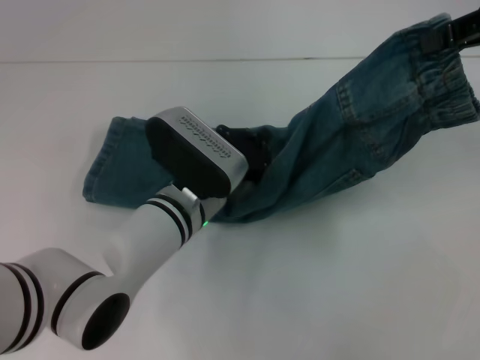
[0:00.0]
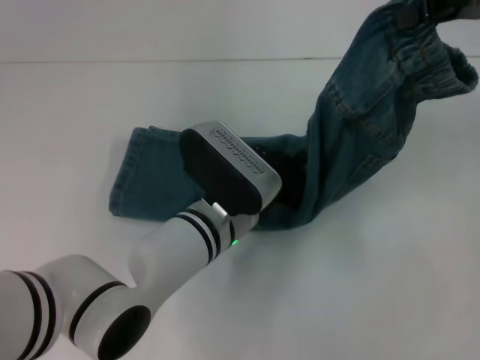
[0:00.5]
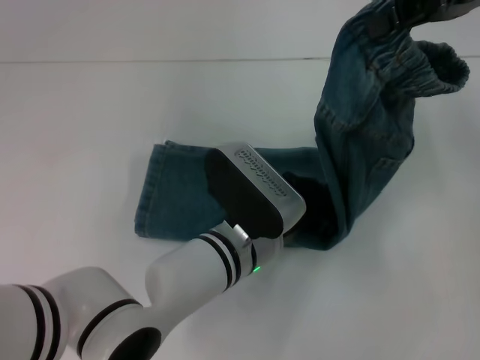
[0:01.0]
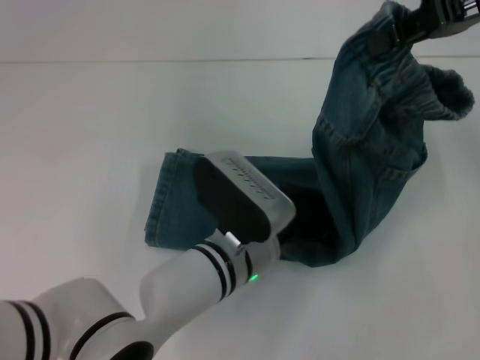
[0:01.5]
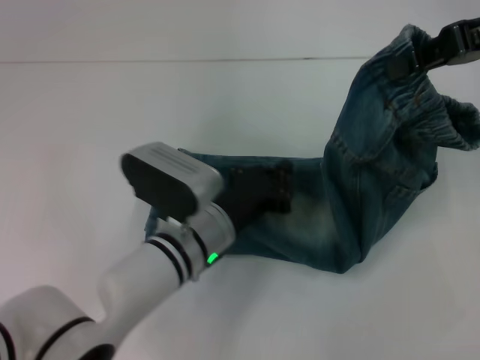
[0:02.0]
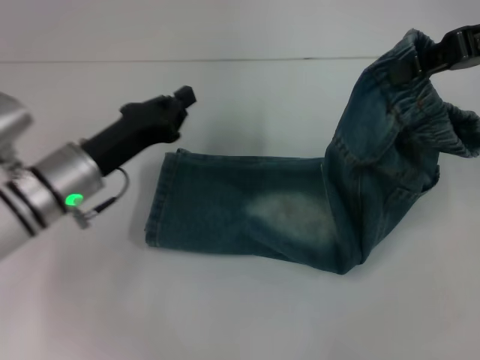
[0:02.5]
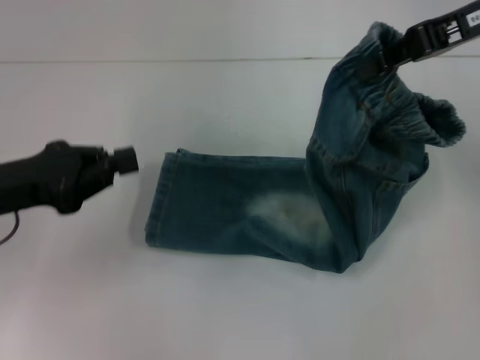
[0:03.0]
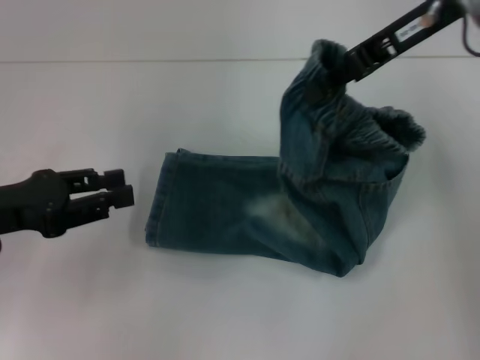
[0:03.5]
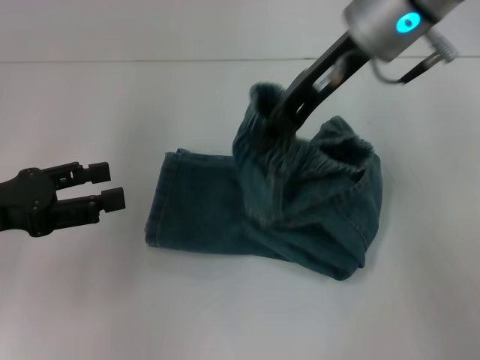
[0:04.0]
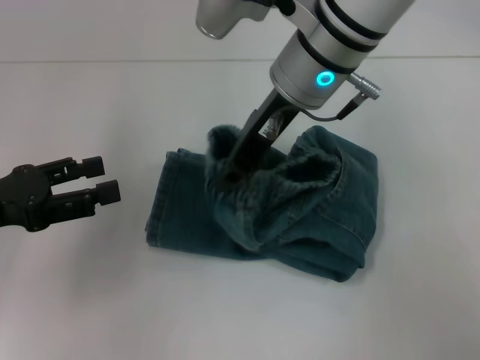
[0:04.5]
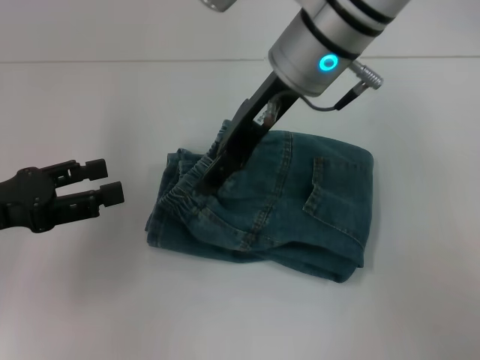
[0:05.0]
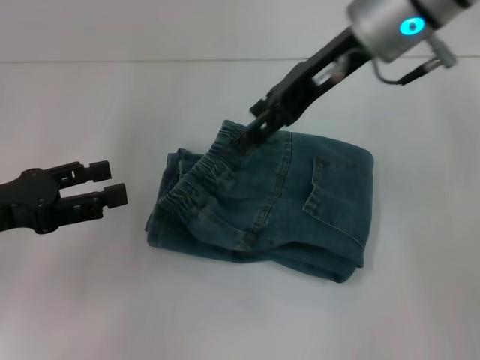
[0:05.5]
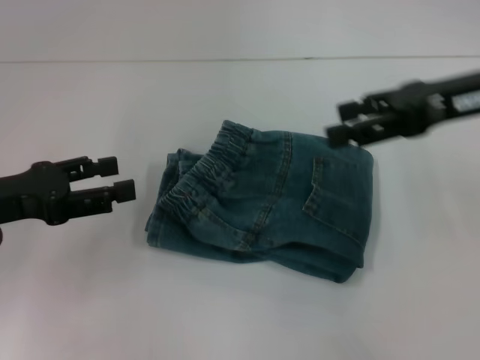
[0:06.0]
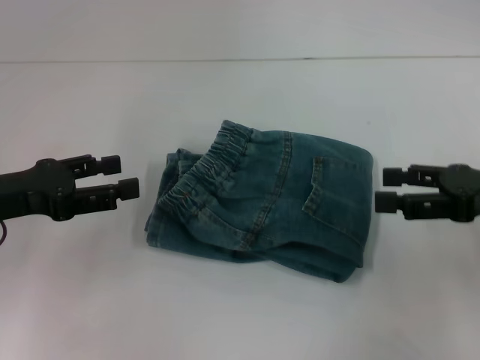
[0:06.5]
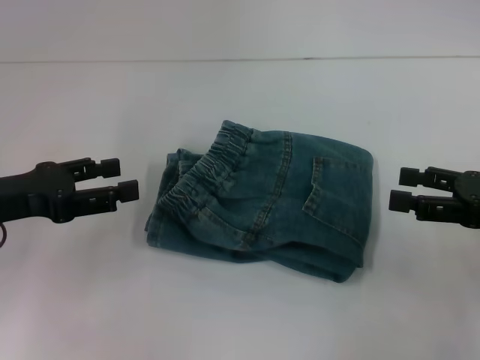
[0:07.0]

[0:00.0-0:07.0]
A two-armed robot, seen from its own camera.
Step, 0:02.0 to 0:05.0: Fold to the left with your right hand.
0:02.0 to 0:03.5: The left gripper goes roughly 25 cm to the left and upward. Meanwhile the right gripper goes about 10 cm to the left.
0:03.5 to 0:05.0: The right gripper shifts approximately 15 cm to the left, and opens. Meanwhile the left gripper opens its fingers.
0:05.0 to 0:07.0: The right gripper shifts approximately 30 cm to the right, backward and downward, and opens.

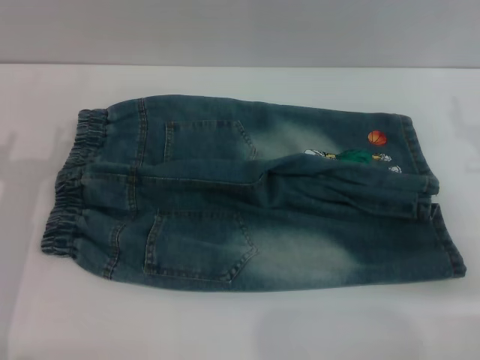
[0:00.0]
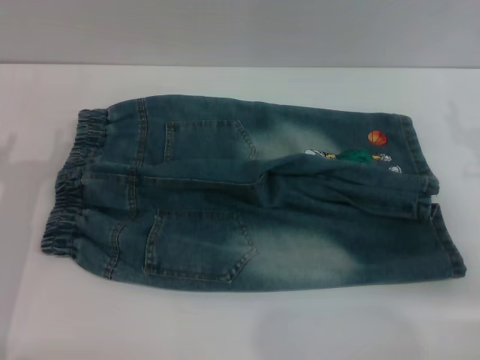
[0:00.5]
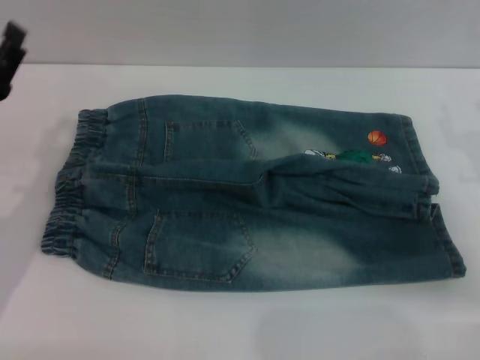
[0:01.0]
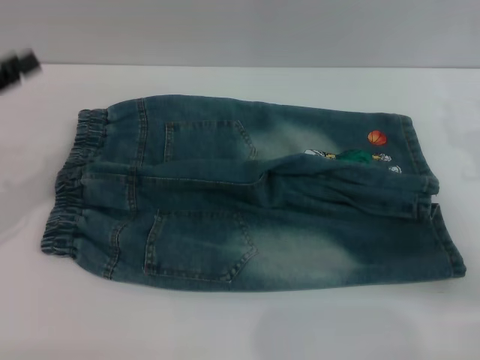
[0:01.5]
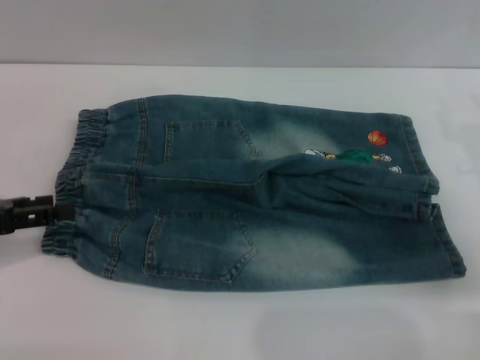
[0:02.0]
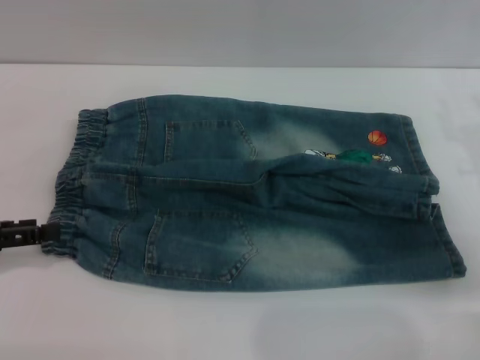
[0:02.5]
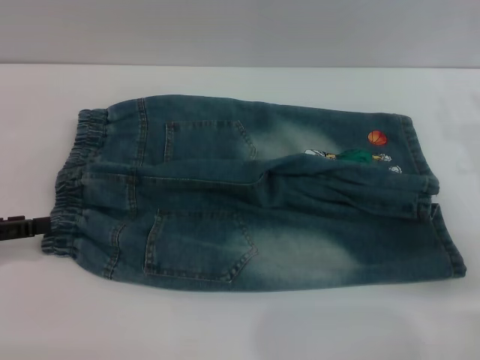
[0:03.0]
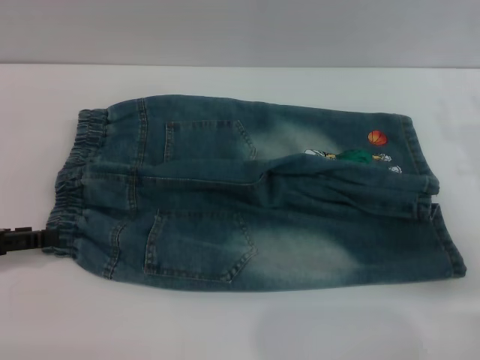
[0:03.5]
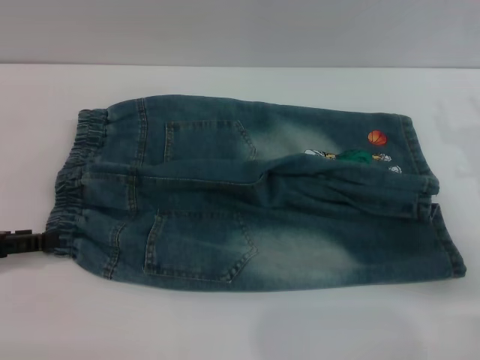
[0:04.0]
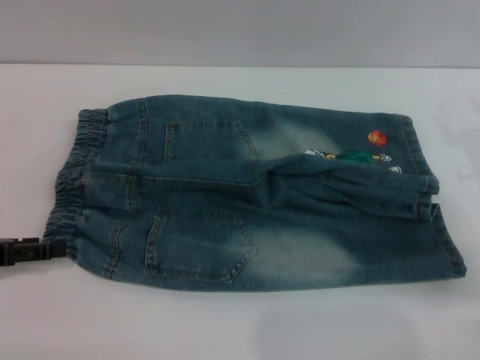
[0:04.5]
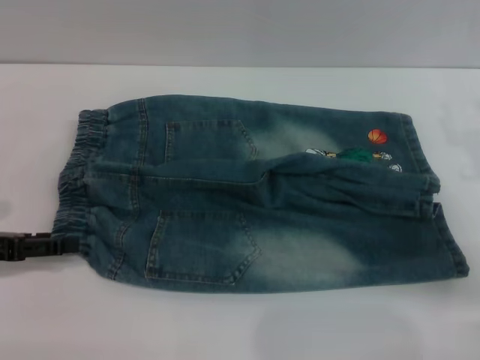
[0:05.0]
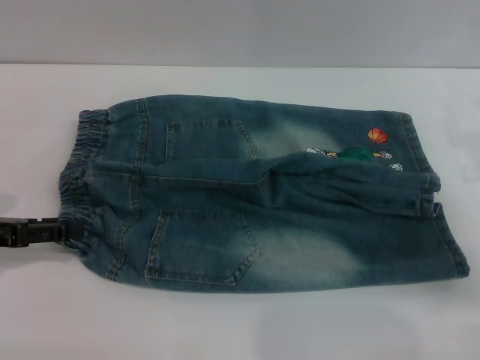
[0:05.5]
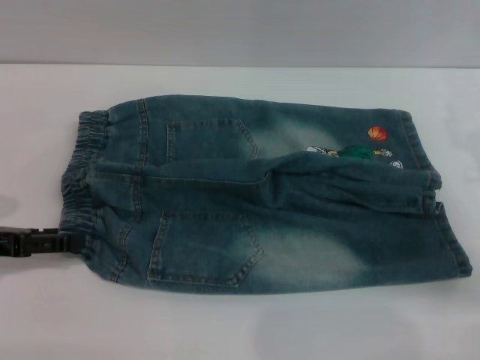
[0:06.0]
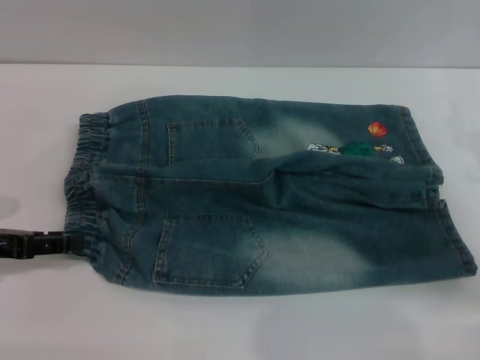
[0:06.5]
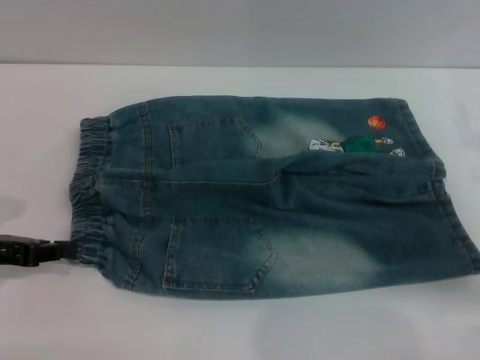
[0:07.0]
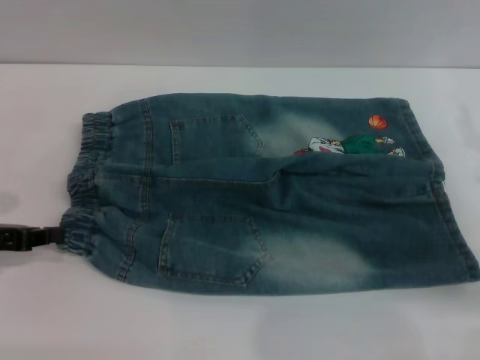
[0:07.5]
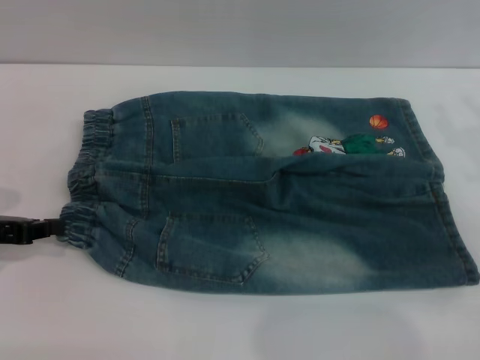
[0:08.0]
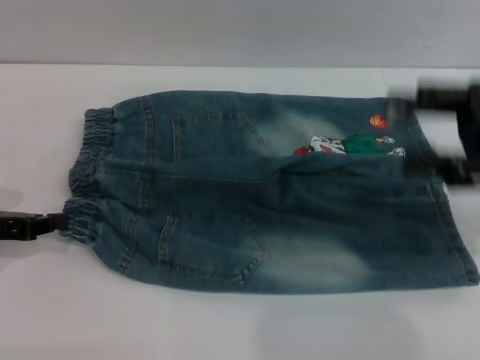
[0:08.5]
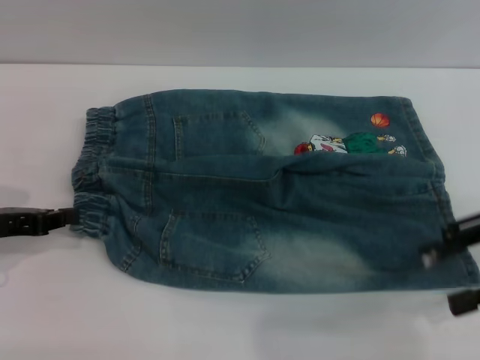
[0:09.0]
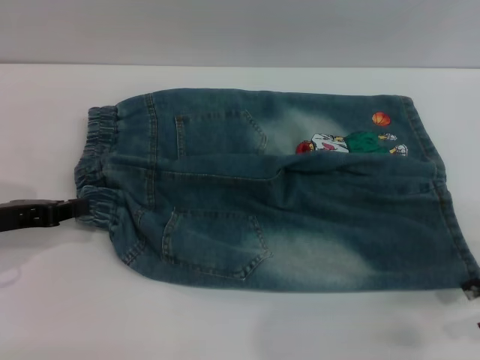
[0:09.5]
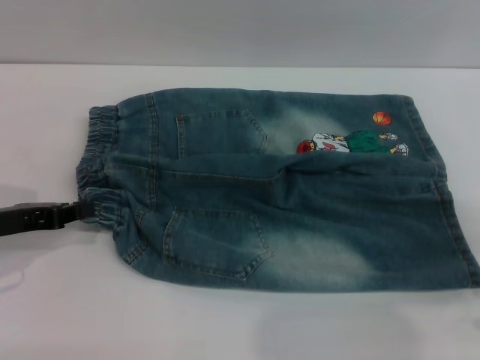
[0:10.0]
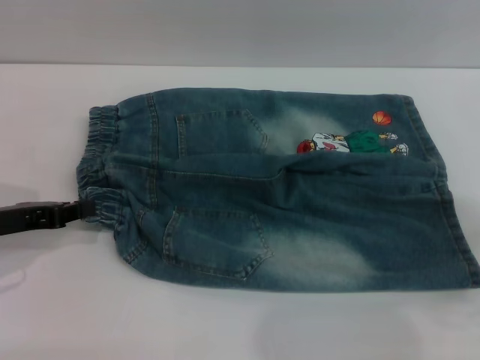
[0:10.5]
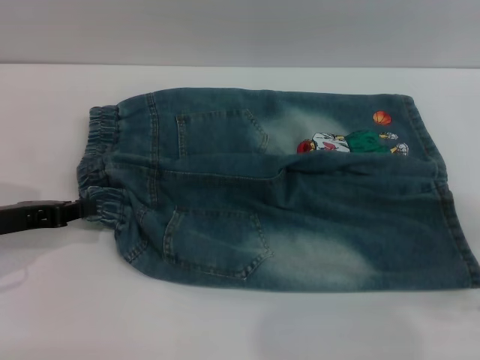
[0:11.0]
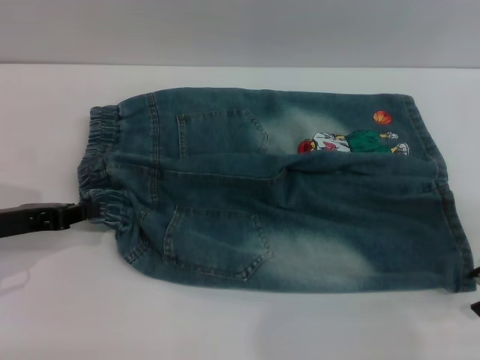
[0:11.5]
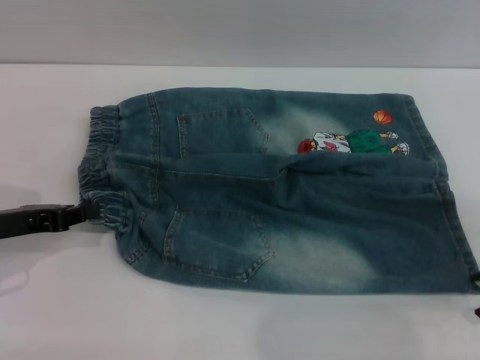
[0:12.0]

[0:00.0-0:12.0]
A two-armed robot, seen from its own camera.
0:00.0 to 0:02.0: The left gripper shifts approximately 5 cm to the left.
0:02.0 to 0:06.0: The grippers move only a little.
0:06.0 to 0:08.0: The left gripper closes up.
0:08.0 to 0:10.0: The right gripper shifts approximately 5 cm to the right.
0:10.0 to 0:12.0: The grippers stay close to where they were, moving slightly.

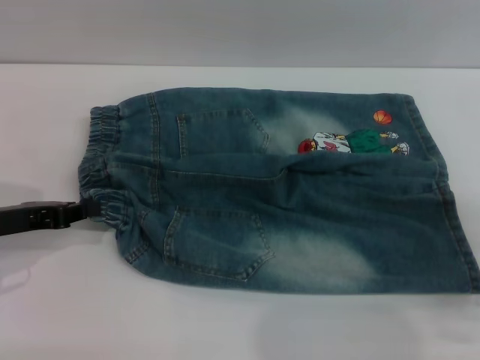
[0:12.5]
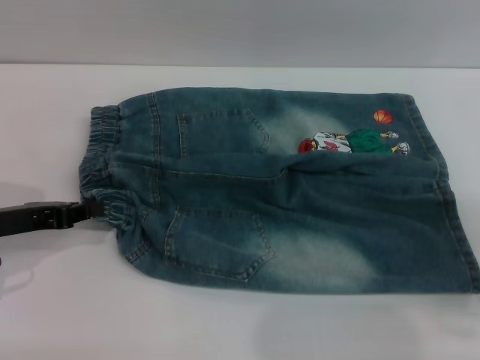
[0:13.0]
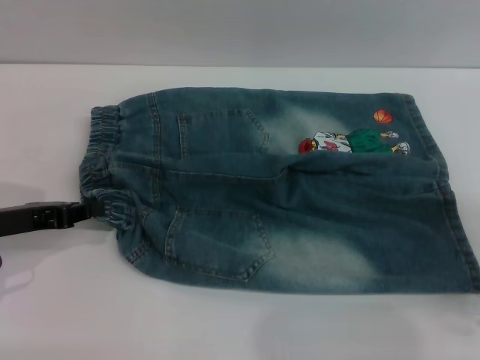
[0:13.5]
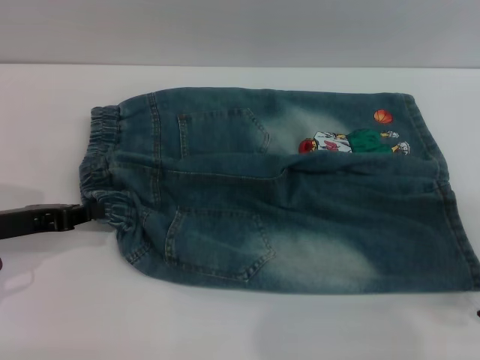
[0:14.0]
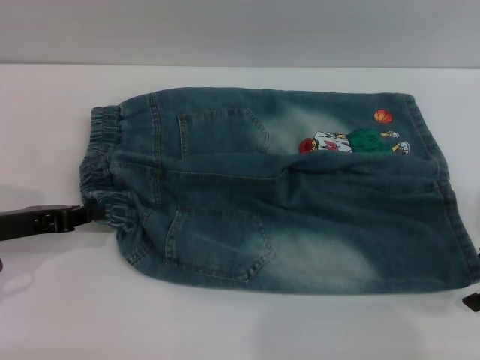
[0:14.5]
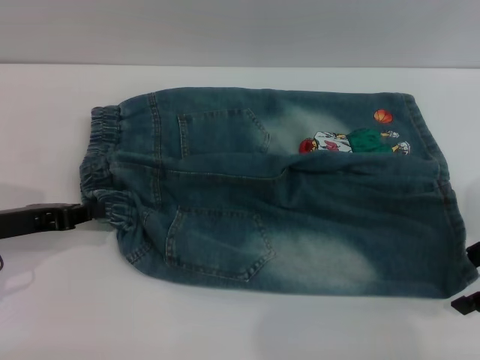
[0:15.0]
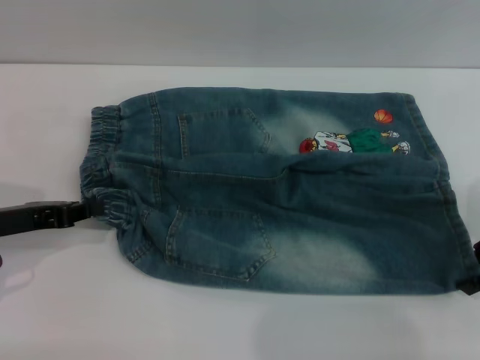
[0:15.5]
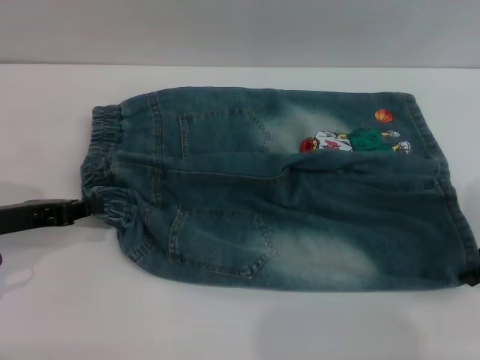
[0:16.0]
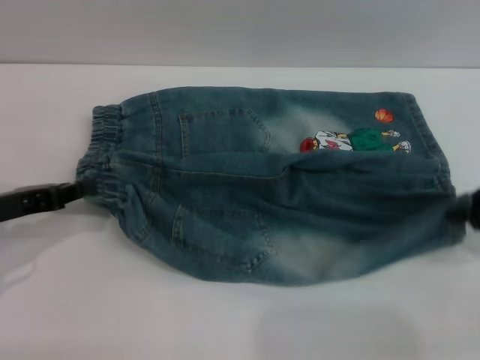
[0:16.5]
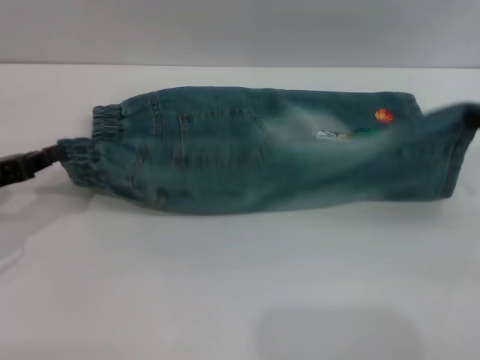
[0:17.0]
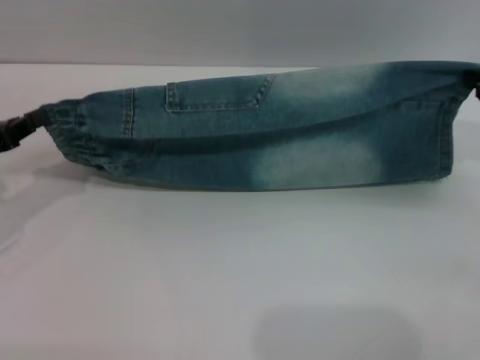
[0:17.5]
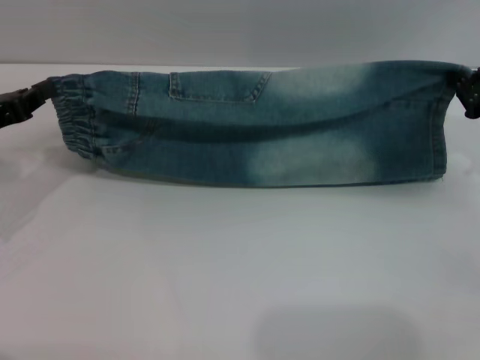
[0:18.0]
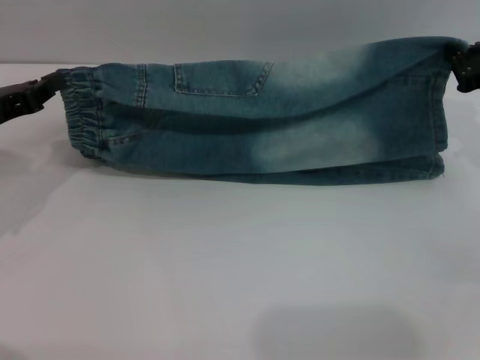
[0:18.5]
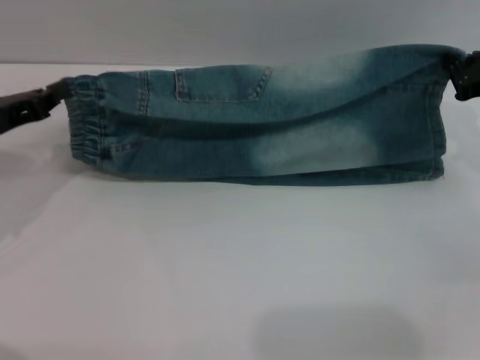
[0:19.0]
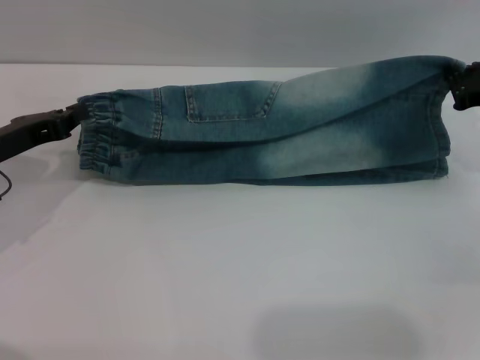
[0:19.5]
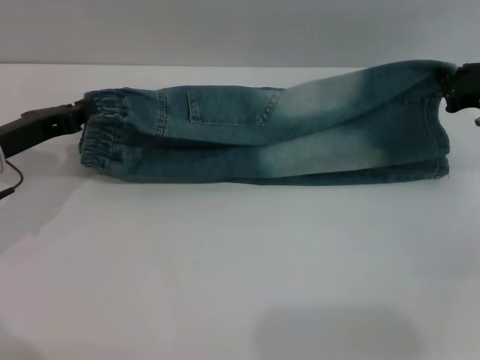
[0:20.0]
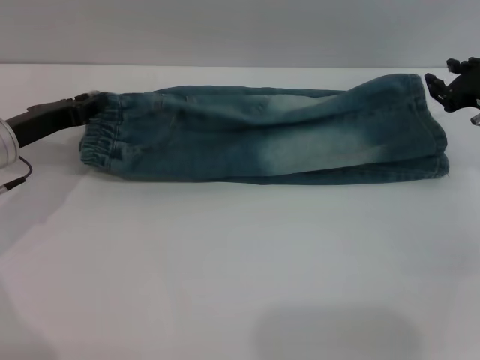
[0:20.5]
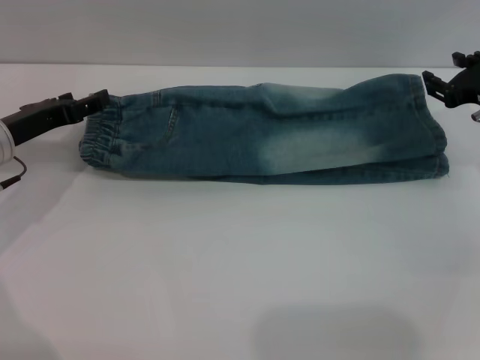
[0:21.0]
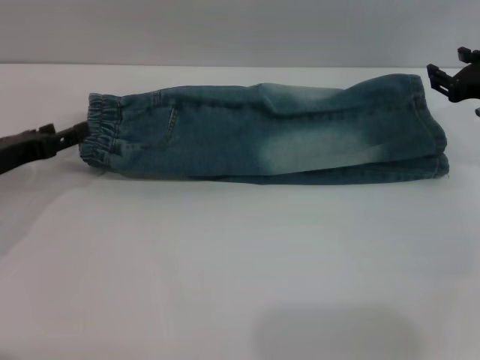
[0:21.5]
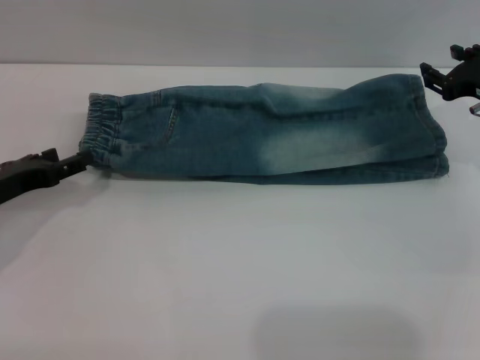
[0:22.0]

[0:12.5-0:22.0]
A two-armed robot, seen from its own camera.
Step, 0:12.5 to 0:21.0: Fold the bottom of the pants upward with both grippers.
0:12.5 to 0:14.5: The grippers move only a little.
0:14.5 to 0:16.5: The right gripper closes.
0:16.5 to 0:18.0: The right gripper goes roughly 5 cm forward, while the left gripper ends up some 5 cm from where it was.
0:18.0 to 0:20.0: The left gripper moves roughly 5 cm.
0:20.0 to 0:22.0: The right gripper opens its fingers; the left gripper changes place by approximately 5 cm, and opens up.
